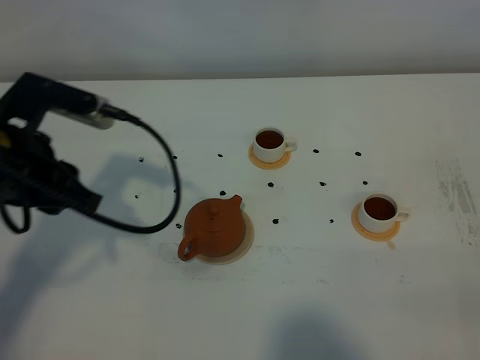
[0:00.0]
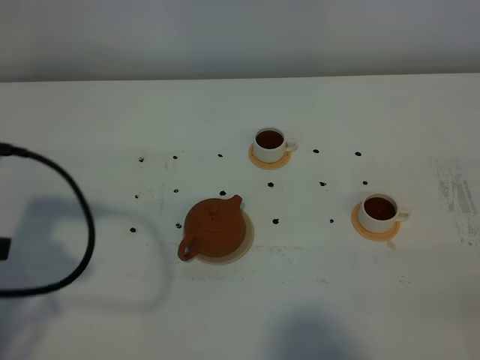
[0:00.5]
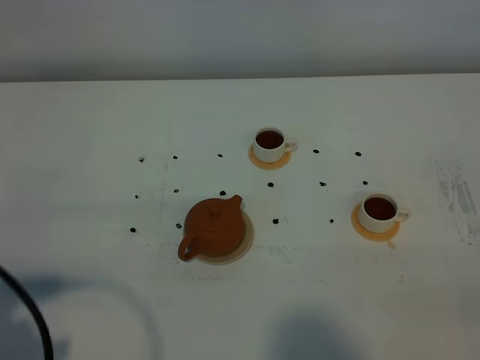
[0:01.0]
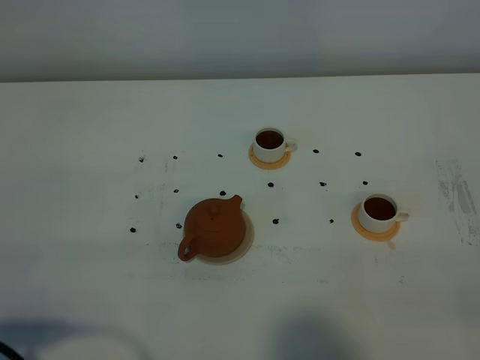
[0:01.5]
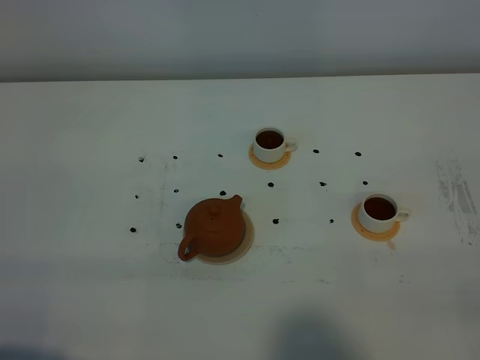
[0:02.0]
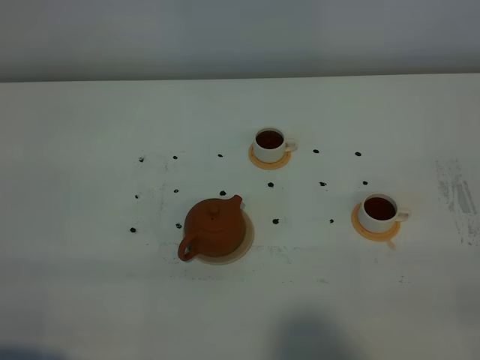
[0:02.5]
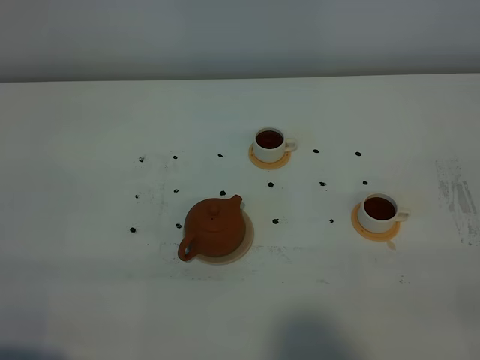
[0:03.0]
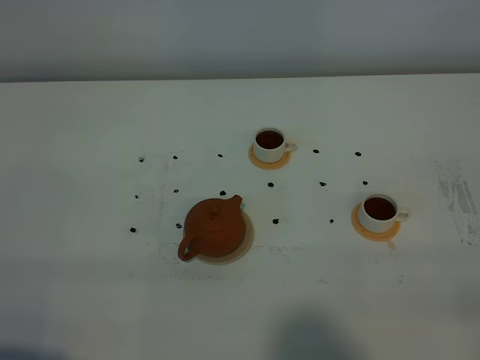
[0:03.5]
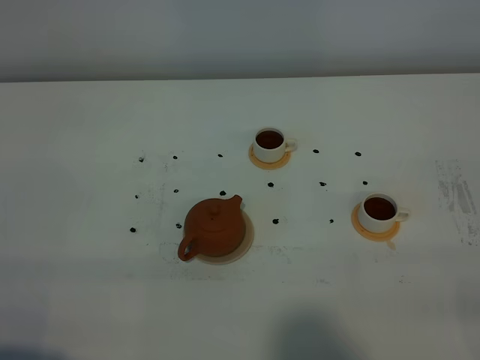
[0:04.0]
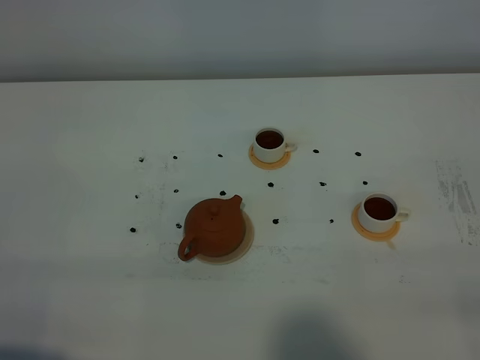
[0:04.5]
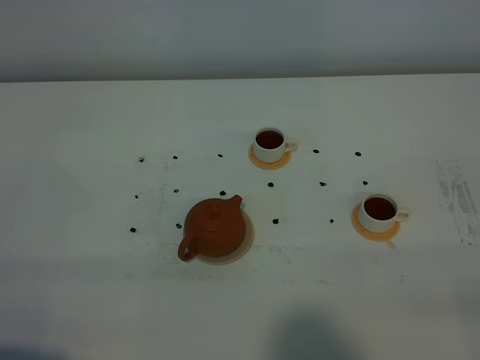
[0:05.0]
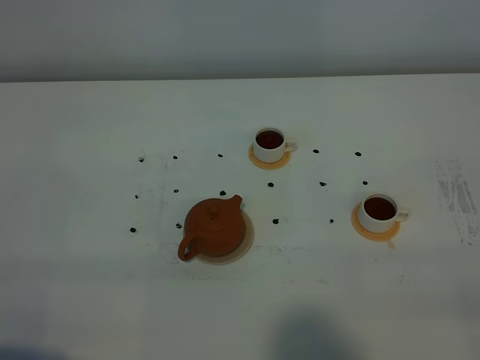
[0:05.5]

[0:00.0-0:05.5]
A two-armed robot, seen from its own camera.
Task of the whole recording: grasp the brown teapot and pour the tea into the two white teacups one by one, put the brown teapot back in its original place.
0:00.0 to 0:02.0: The left gripper moves backward, approximately 25 cm.
0:03.5 to 0:05.5: Neither gripper changes place.
